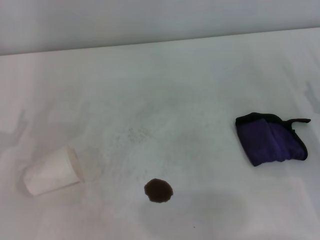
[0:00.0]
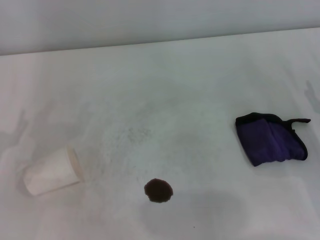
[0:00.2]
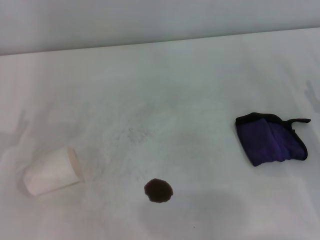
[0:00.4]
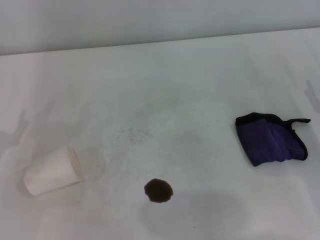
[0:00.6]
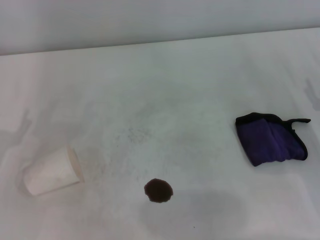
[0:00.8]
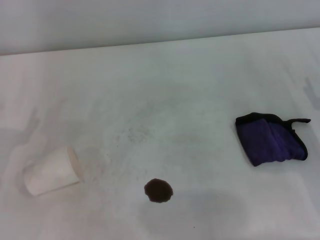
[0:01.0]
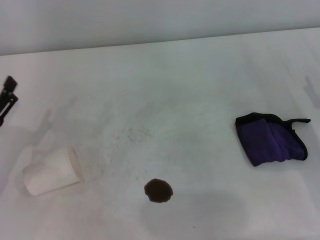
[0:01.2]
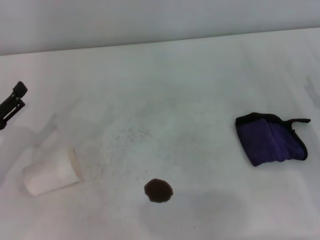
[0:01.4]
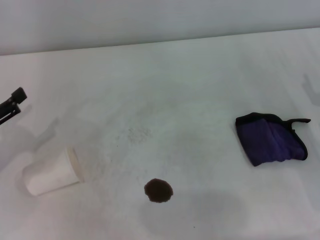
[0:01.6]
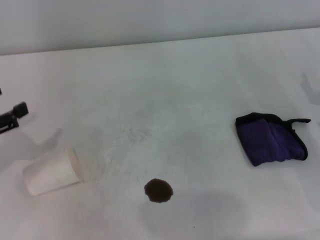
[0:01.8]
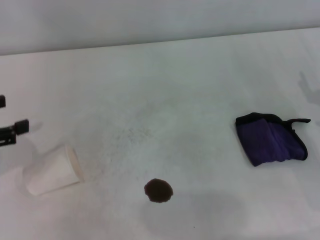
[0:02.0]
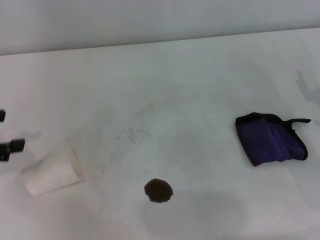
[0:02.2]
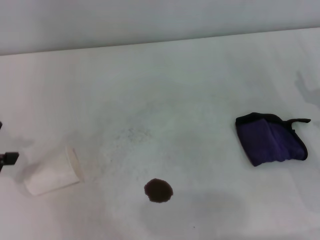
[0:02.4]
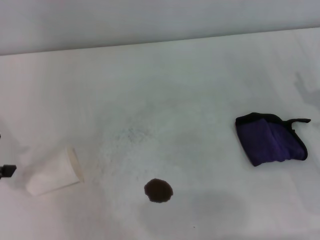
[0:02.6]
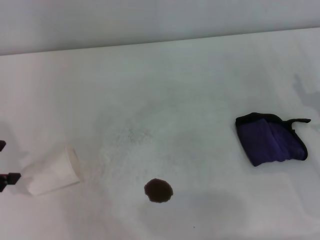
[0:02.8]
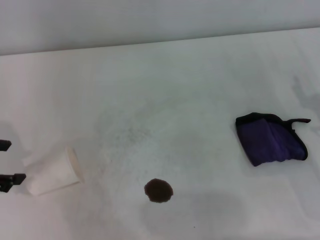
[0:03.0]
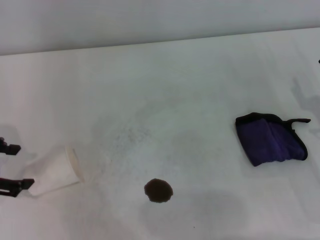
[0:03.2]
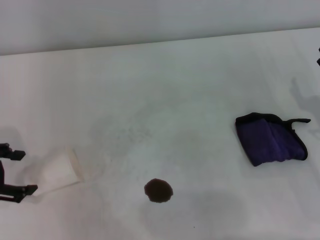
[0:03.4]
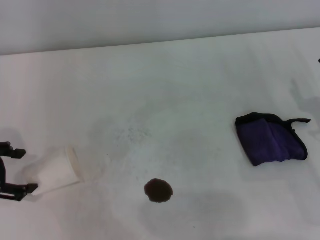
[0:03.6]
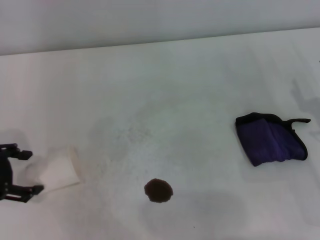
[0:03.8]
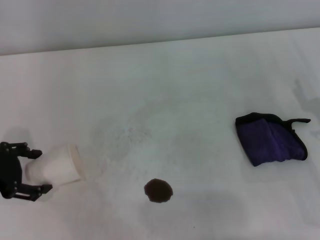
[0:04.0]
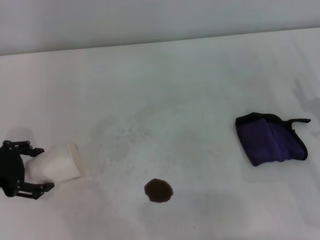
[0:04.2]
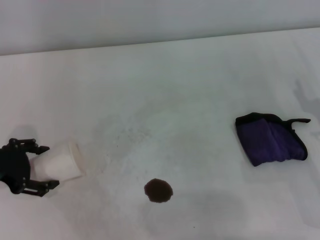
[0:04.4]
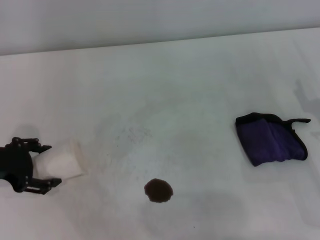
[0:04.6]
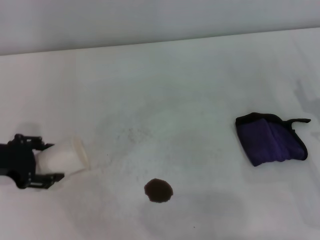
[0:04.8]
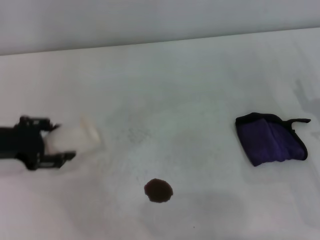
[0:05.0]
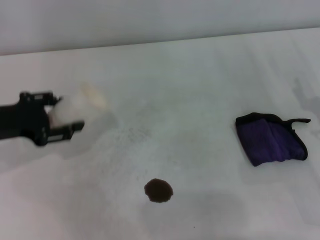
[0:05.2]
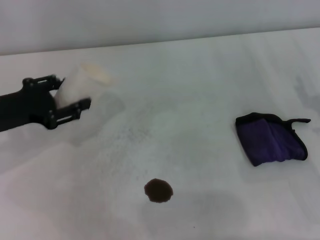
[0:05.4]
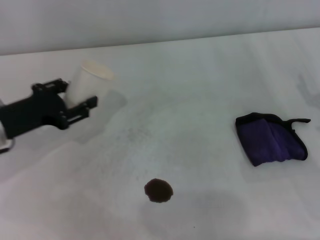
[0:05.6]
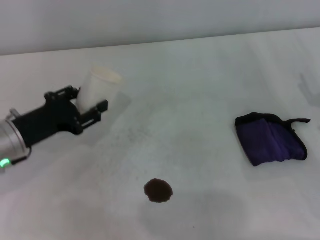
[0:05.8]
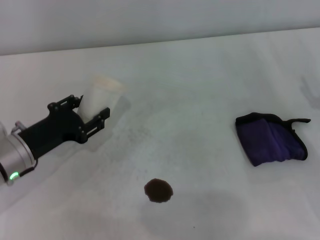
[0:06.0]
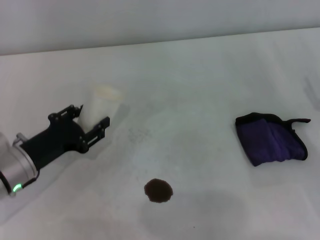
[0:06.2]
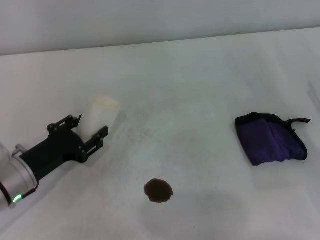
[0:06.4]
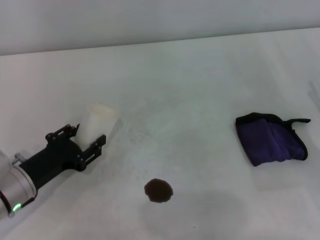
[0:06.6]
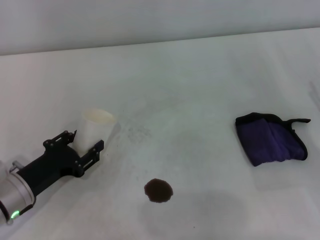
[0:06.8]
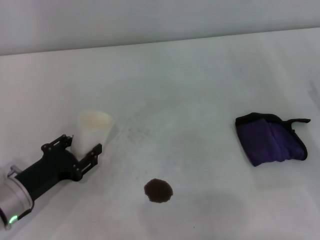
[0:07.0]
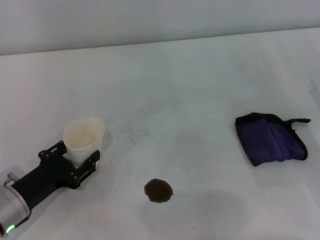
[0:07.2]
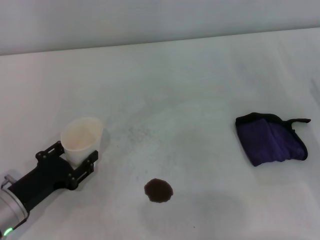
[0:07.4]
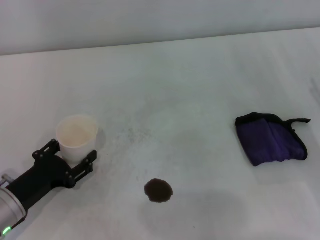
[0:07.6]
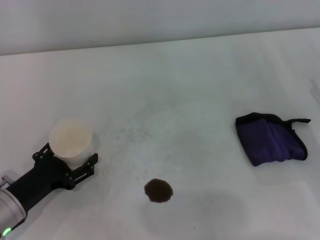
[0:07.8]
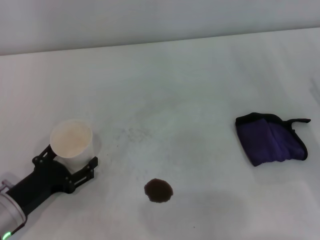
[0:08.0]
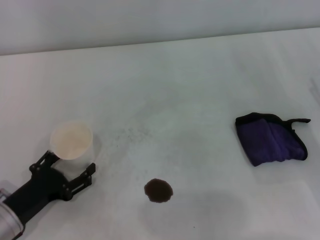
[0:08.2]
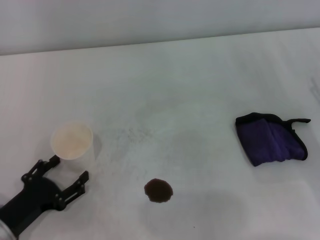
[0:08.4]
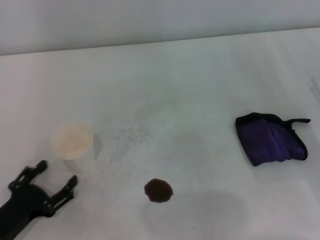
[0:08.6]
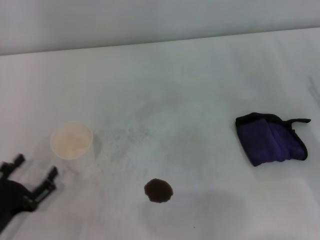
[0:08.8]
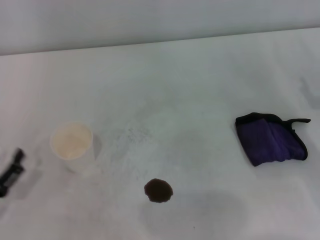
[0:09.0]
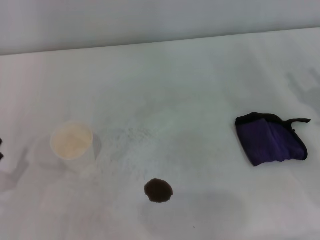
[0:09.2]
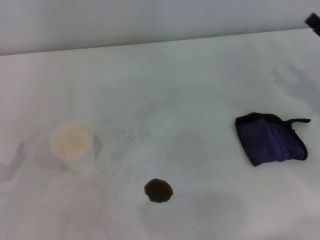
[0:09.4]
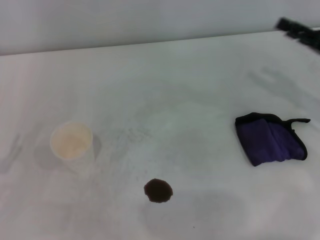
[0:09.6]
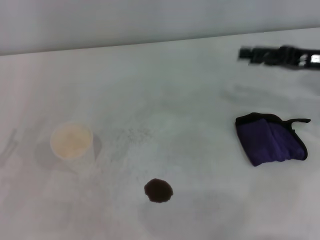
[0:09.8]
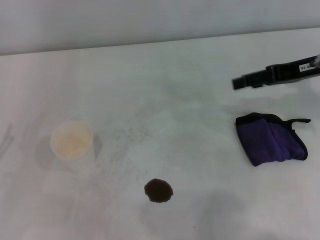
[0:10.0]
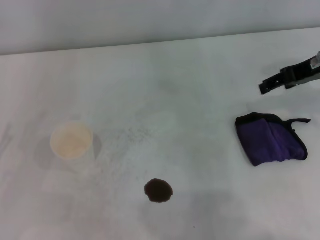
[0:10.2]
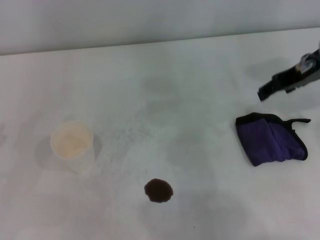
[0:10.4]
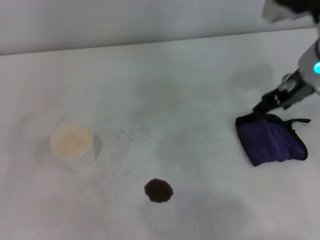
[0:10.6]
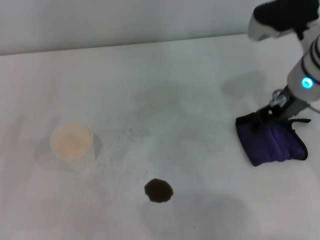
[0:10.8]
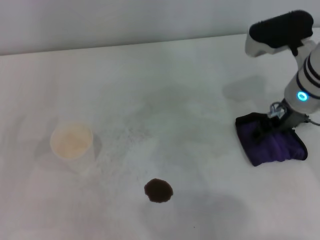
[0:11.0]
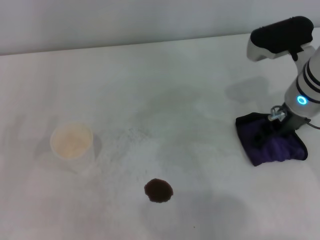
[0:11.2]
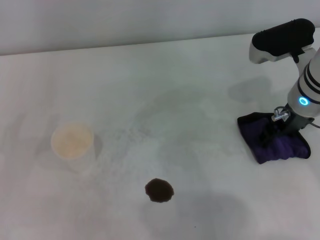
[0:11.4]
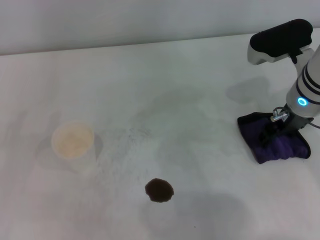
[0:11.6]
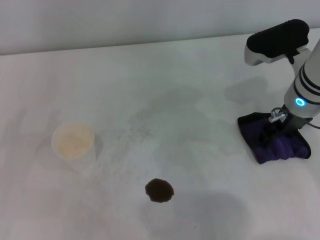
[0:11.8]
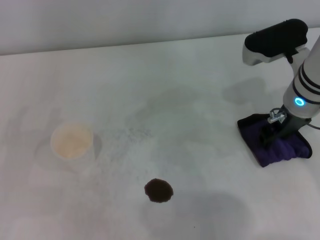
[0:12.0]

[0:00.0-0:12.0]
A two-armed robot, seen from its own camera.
Step, 0:00.0 to 0:04.6: Grasp the paper cup with the left gripper.
Step, 0:04.8 to 0:07.8: Stand the paper cup upright with the left gripper.
0:00.0 to 0:01.6: The left gripper ends up roughly 5 cm from where it was.
0:01.6 to 0:03.0: The left gripper is displaced upward by about 10 cm.
0:03.0 to 0:04.4: The left gripper is displaced downward by approximately 5 cm.
0:04.4 to 0:06.0: The left gripper moves to the right and downward, some 10 cm, and closes its fingers.
0:06.0 to 0:07.6: The left gripper moves backward, about 5 cm.
0:07.6 to 0:09.0: The left gripper goes about 10 cm backward and to the left, and opens up.
0:09.0 to 0:10.4: The left gripper moves upward and to the left, approximately 5 cm. Meanwhile the right gripper heads upward, forward and to the left, covering approximately 20 cm.
0:10.4 to 0:12.0: The right gripper moves downward and to the left, approximately 10 cm.

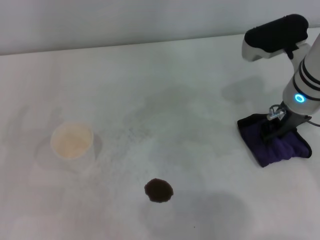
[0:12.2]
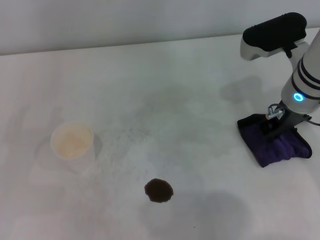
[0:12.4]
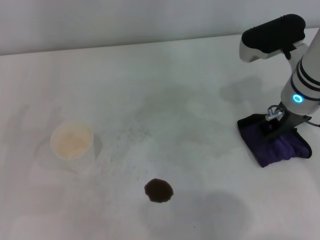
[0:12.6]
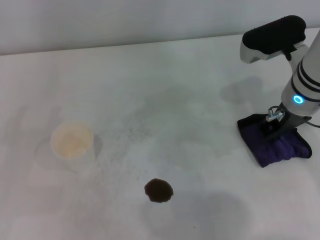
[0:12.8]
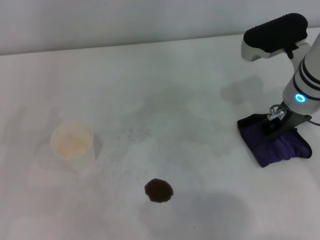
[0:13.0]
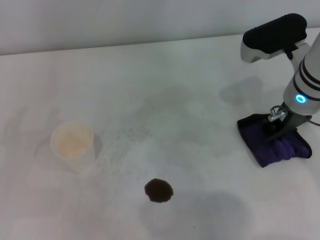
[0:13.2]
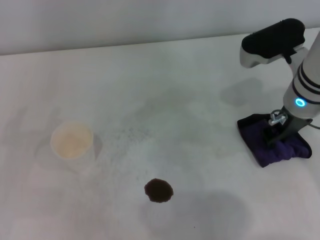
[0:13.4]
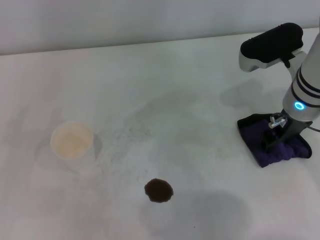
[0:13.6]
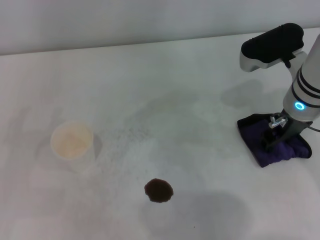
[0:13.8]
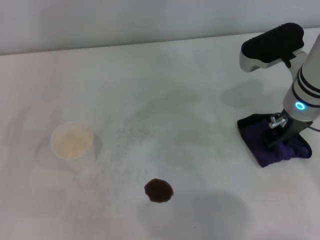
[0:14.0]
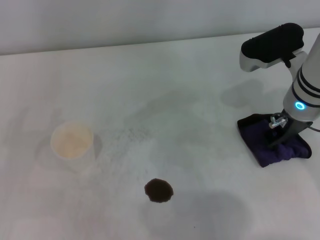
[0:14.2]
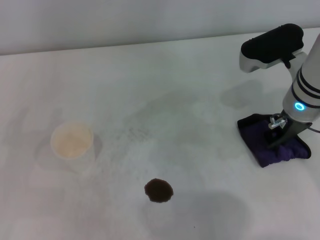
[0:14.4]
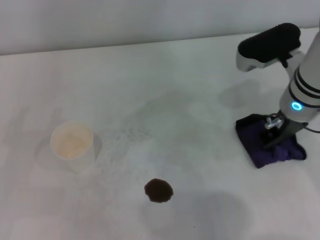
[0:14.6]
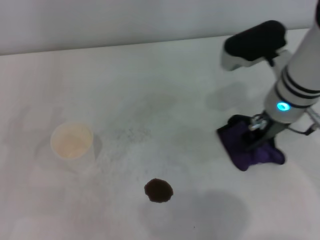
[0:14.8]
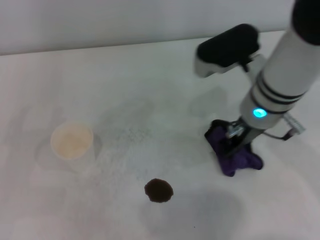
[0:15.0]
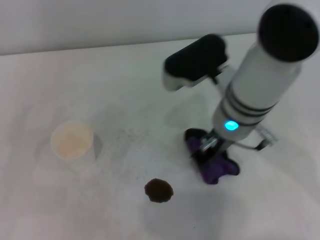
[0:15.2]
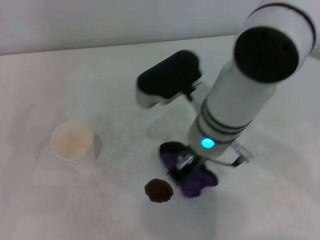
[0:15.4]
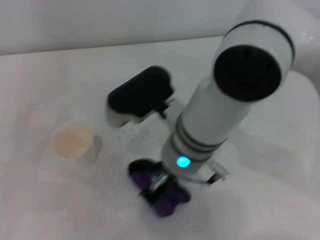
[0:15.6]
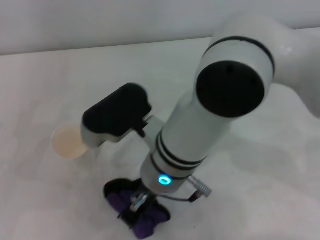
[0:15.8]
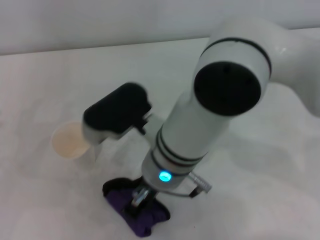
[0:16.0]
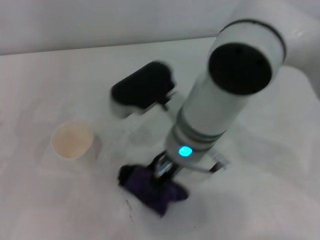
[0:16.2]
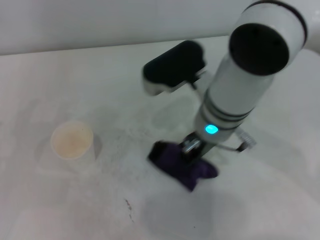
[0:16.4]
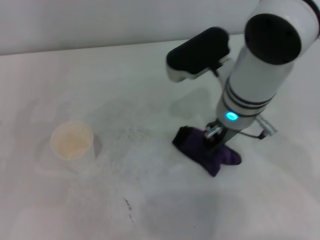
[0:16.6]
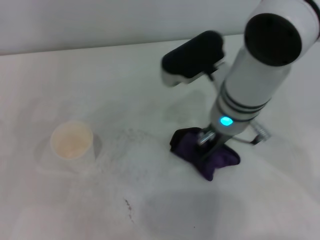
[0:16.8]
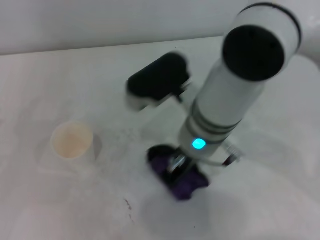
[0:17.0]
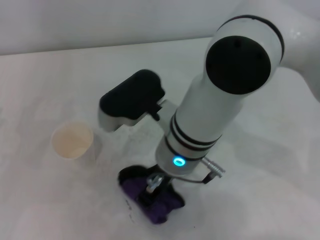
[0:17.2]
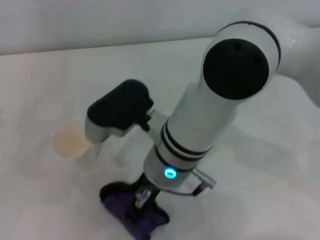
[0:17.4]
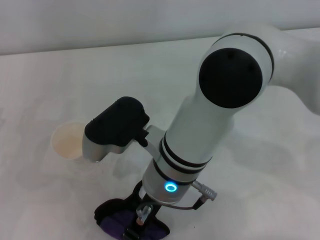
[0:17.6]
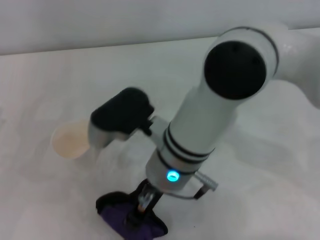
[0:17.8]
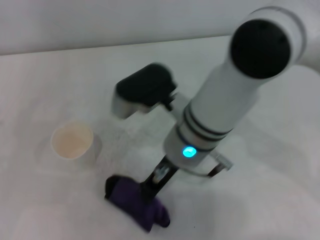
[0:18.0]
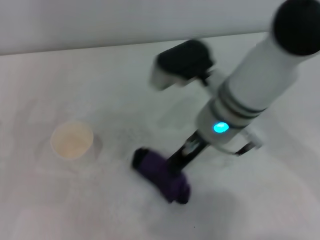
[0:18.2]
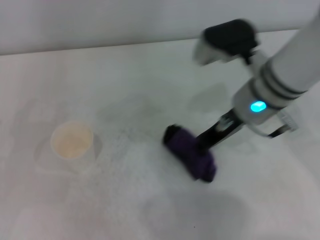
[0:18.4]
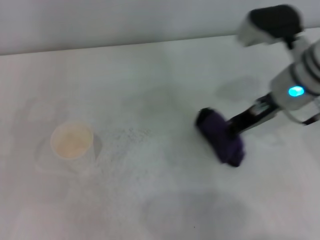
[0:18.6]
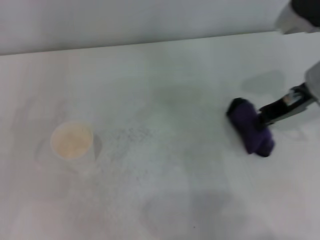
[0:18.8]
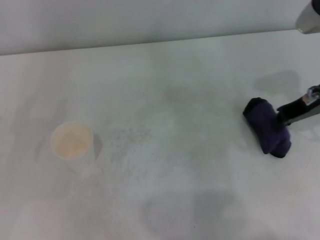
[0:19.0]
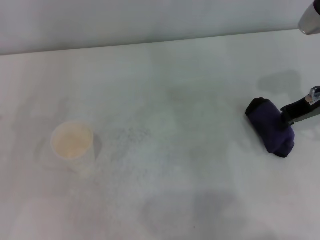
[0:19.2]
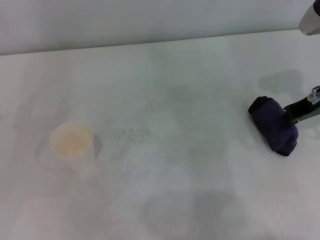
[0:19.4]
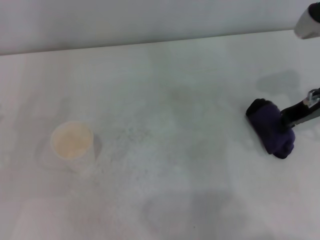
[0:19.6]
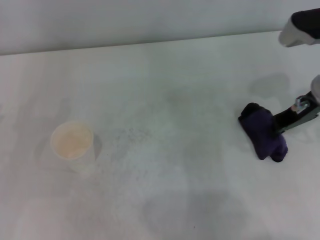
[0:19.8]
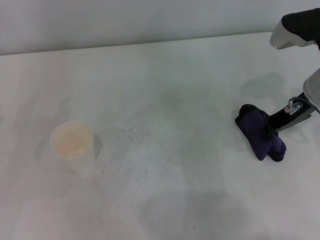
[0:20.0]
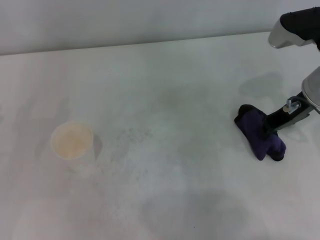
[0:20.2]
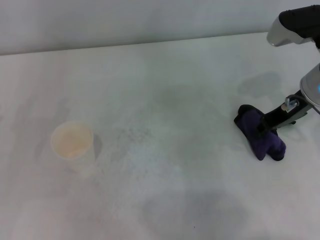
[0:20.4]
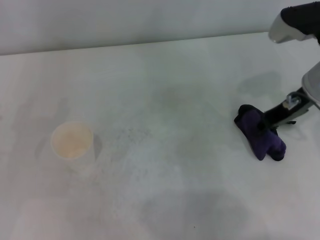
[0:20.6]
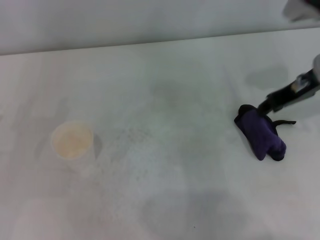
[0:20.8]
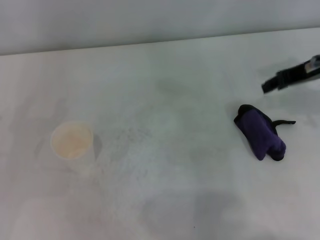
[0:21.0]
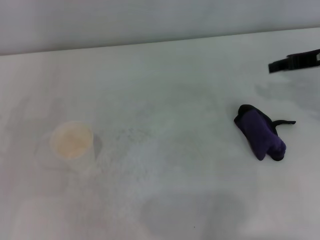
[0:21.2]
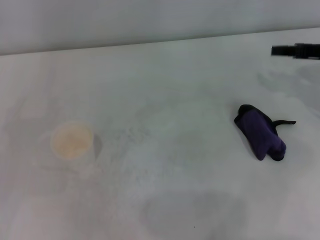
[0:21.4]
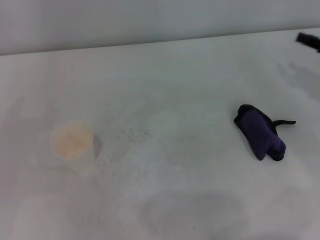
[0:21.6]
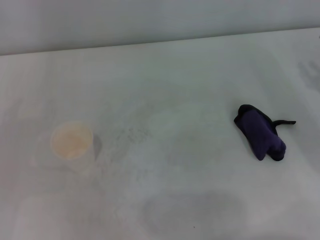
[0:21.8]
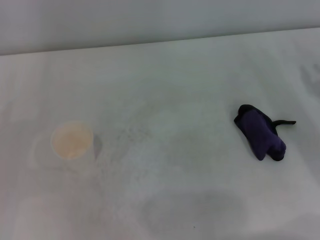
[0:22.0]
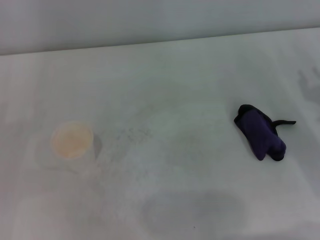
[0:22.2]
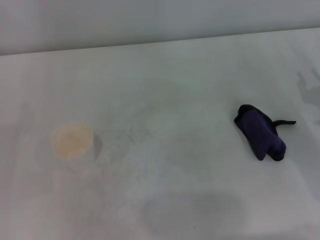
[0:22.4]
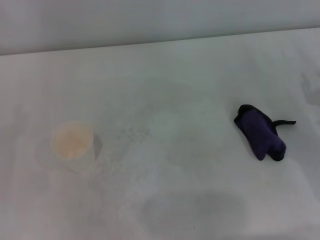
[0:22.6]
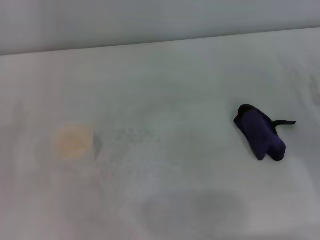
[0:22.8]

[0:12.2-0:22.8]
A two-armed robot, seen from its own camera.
Step, 0:12.2 to 0:14.4: Grasp the rag with the right gripper.
Step, 0:14.6 to 0:19.6: Wipe the stains off the table with the right gripper.
Step, 0:19.8 to 0:20.4: Place the rag on the table with the right gripper.
0:12.2 to 0:13.8: The right gripper closes, then reopens.
0:13.8 to 0:15.2: The right gripper is displaced to the left by roughly 10 cm, and closes up.
0:15.2 to 0:16.8: The right gripper moves some 10 cm to the left and comes back.
0:16.8 to 0:18.2: The right gripper moves approximately 10 cm to the left and comes back.
0:18.2 to 0:19.8: The right gripper moves to the right, approximately 15 cm.
0:19.8 to 0:21.2: The right gripper is displaced to the right by some 5 cm, and opens.
0:21.2 to 0:22.8: The right gripper goes about 15 cm downward and backward.
